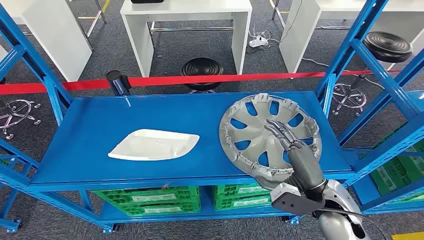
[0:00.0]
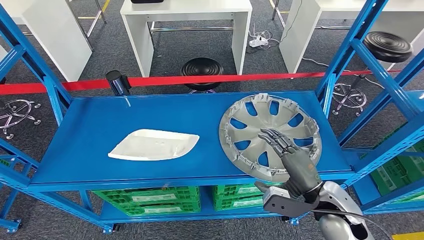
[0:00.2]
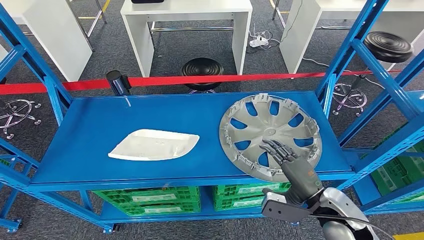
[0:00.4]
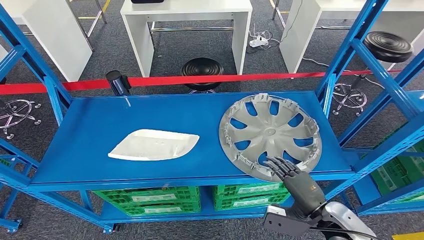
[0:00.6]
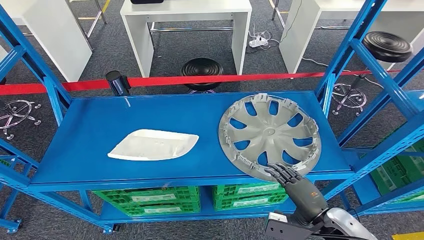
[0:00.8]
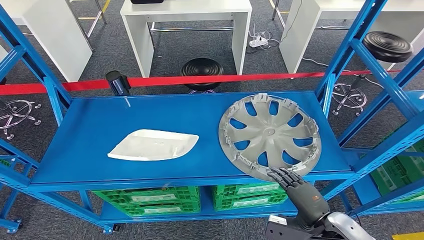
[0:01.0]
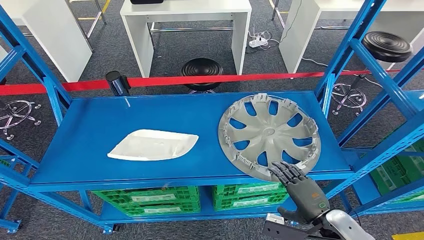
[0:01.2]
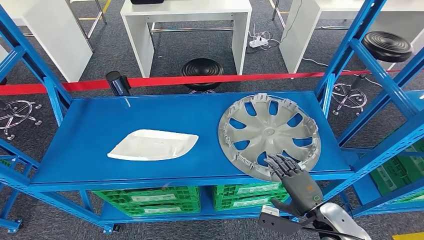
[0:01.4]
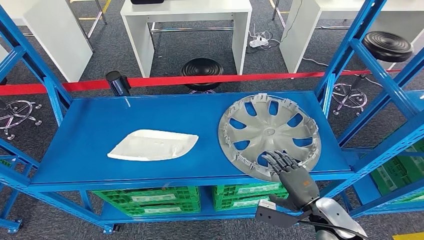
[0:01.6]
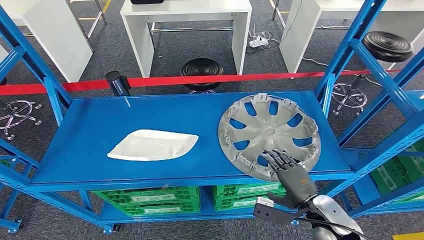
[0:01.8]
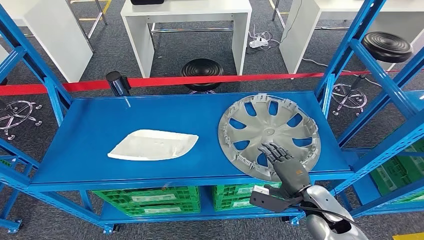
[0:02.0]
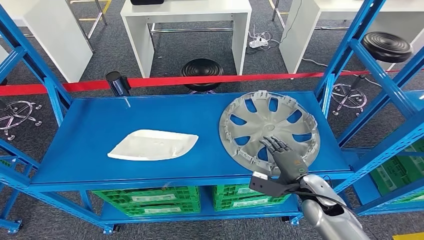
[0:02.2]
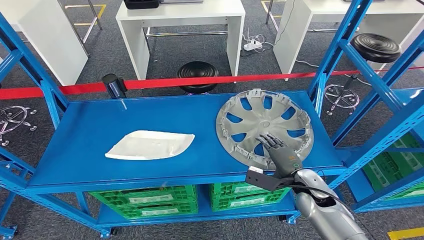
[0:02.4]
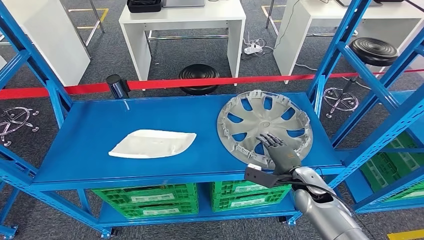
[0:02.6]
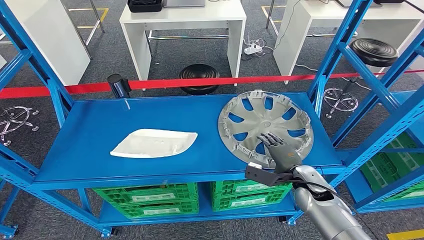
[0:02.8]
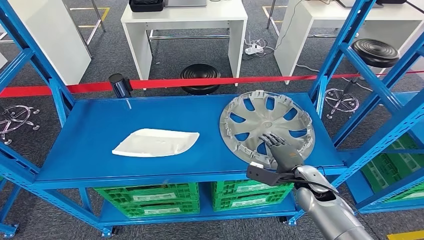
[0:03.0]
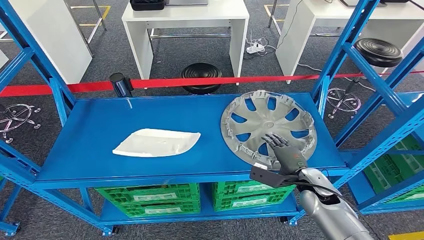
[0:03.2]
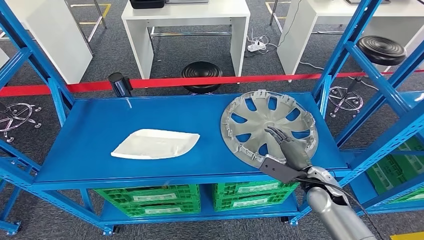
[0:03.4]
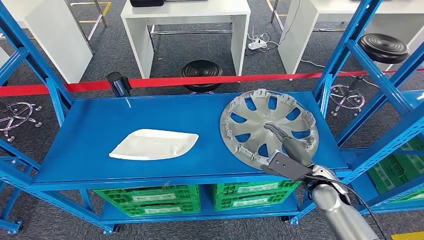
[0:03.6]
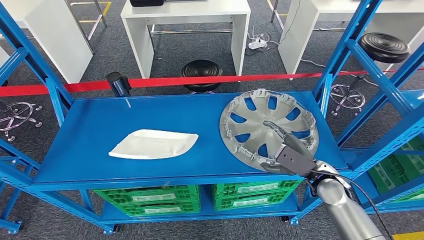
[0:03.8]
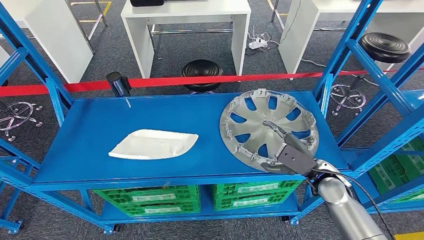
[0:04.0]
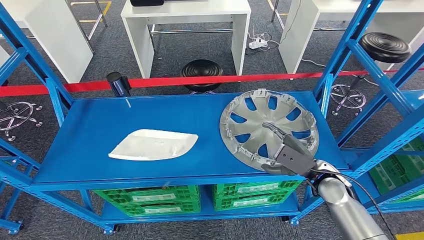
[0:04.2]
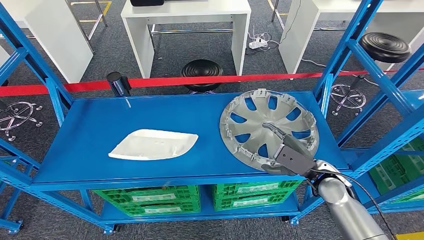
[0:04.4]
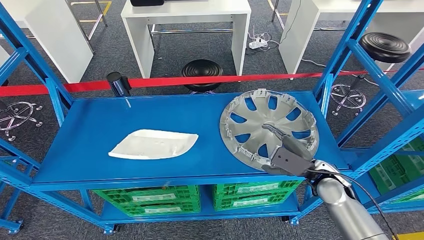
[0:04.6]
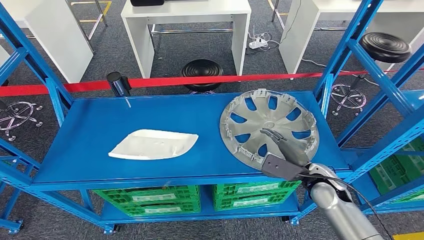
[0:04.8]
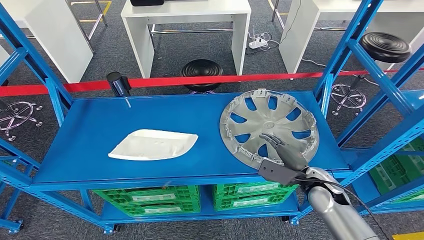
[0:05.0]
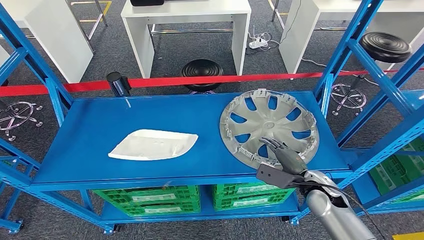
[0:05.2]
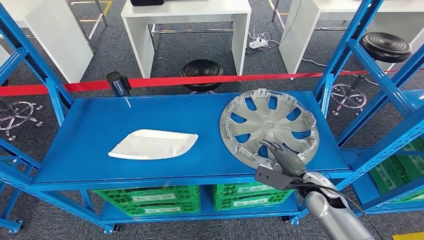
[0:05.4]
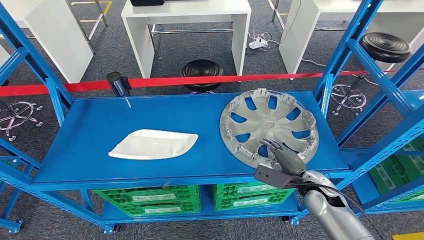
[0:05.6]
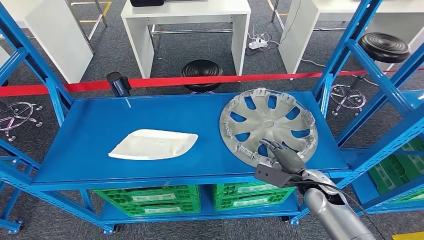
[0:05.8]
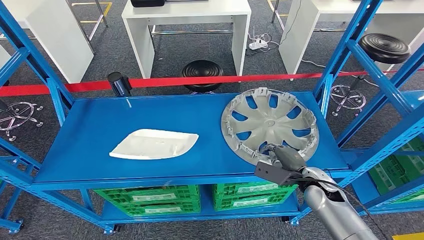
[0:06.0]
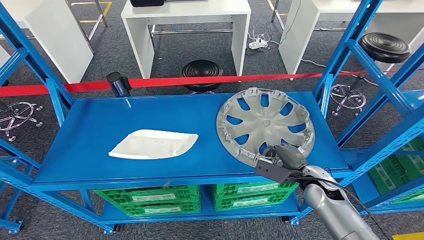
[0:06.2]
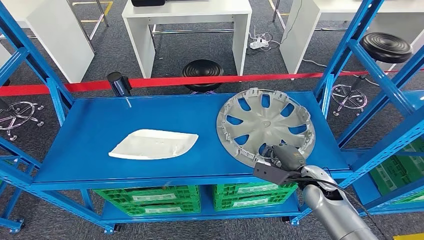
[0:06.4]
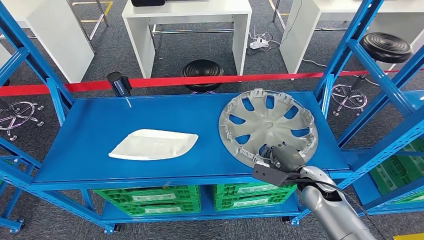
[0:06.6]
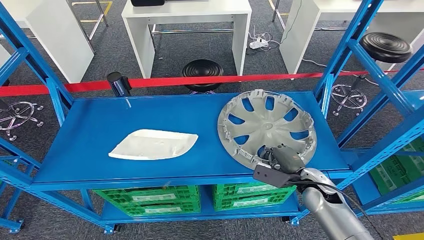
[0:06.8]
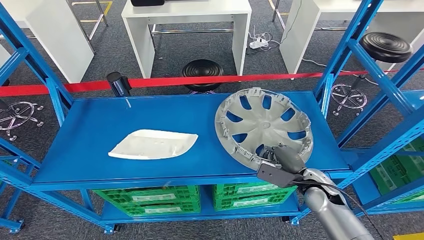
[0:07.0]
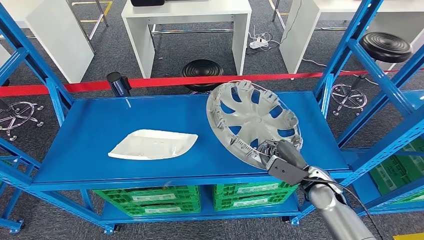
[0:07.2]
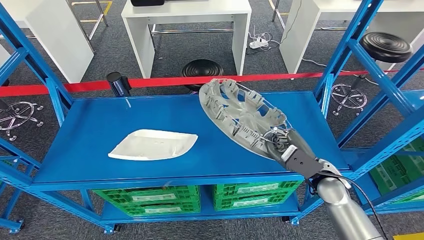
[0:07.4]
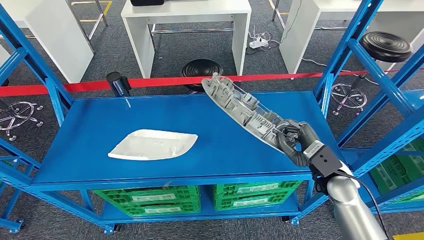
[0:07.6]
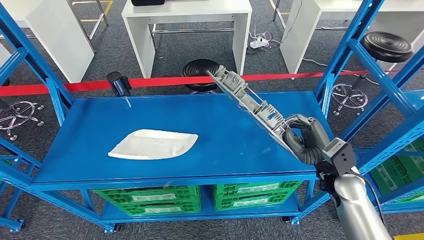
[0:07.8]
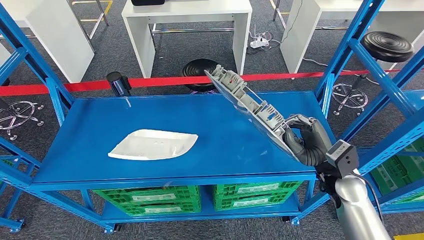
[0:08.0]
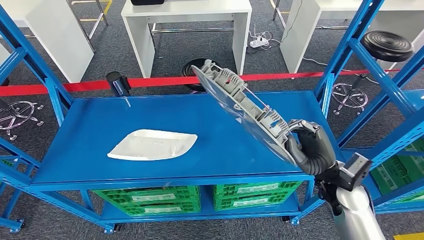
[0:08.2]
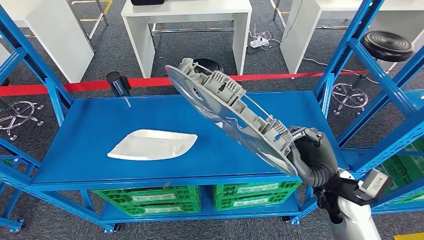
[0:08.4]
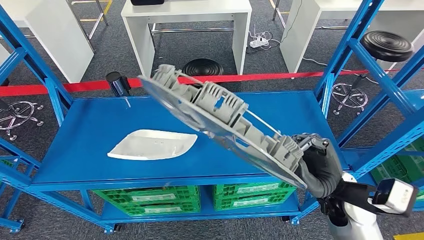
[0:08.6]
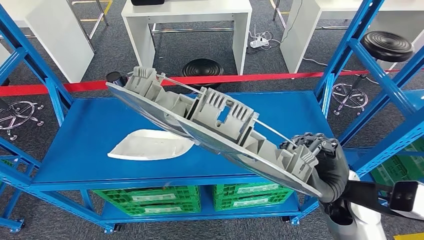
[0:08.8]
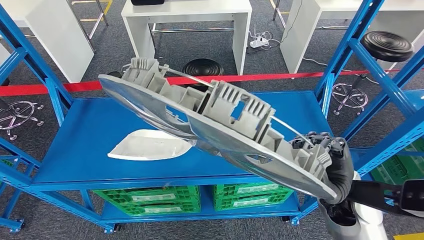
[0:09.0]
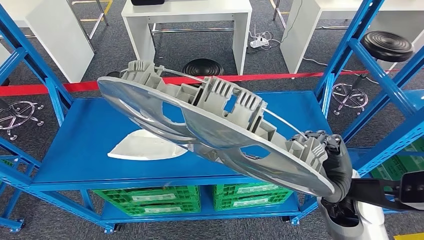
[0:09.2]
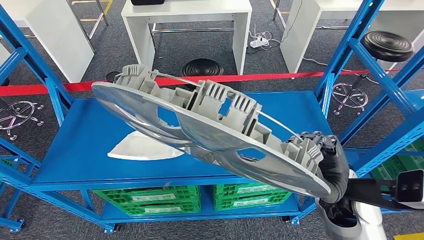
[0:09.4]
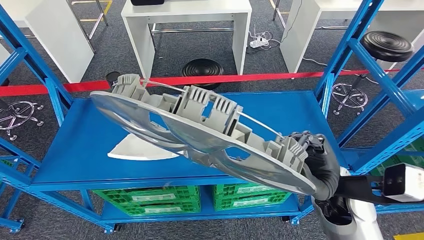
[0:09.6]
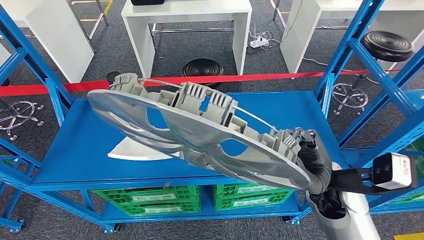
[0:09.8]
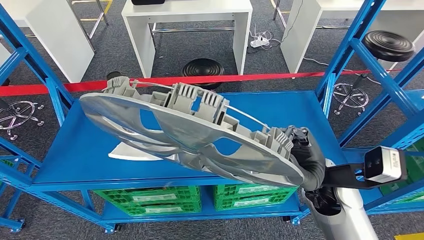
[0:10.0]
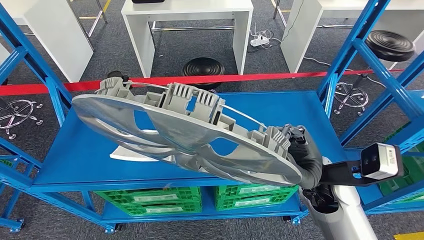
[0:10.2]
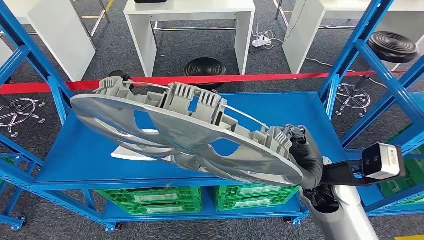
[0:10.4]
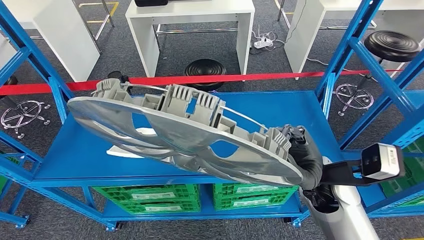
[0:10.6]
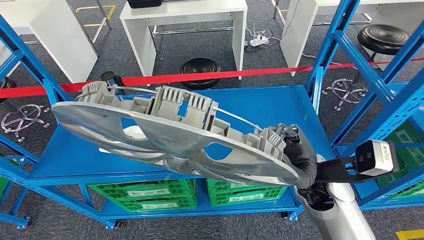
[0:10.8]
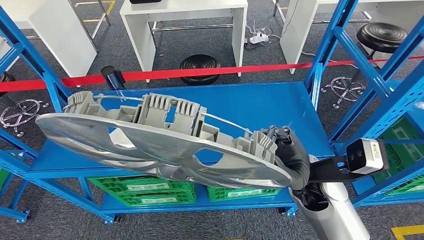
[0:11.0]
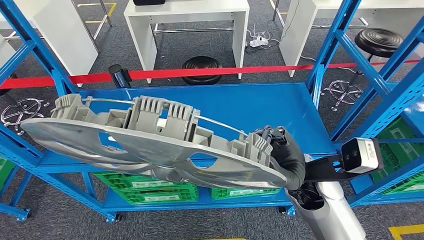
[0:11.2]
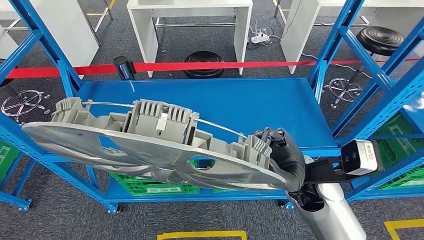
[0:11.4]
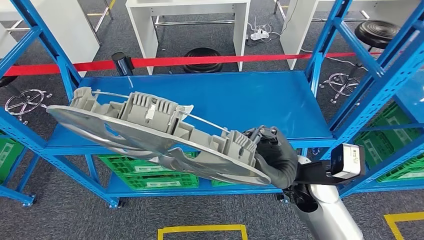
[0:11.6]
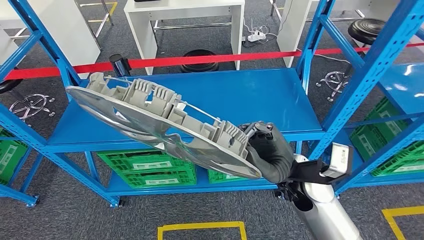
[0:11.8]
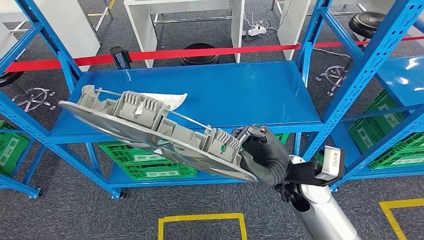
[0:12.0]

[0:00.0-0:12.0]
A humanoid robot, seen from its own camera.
Step, 0:00.0 to 0:09.0: Pick up the small component from the shelf.
0:06.0 to 0:07.6: The right hand shifts approximately 5 cm upward.
0:07.6 to 0:09.0: The right hand moves upward and backward, approximately 10 cm.

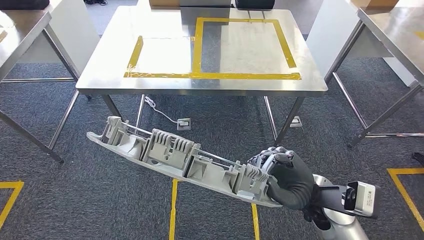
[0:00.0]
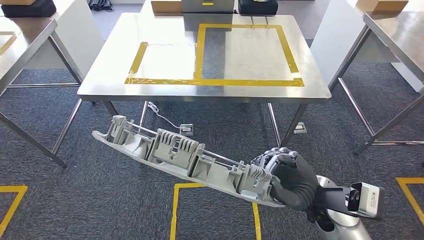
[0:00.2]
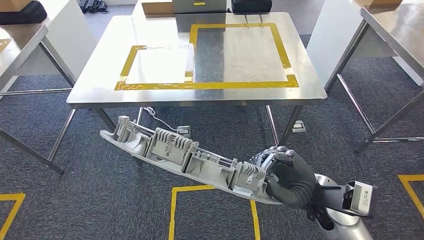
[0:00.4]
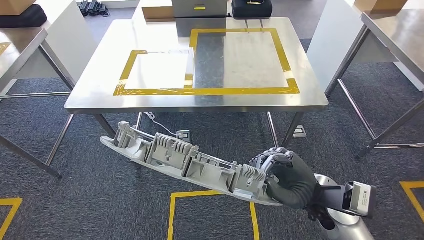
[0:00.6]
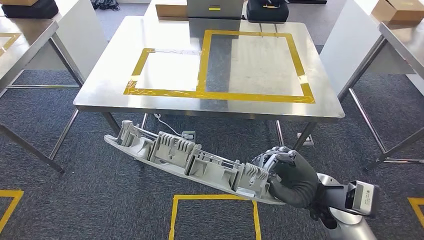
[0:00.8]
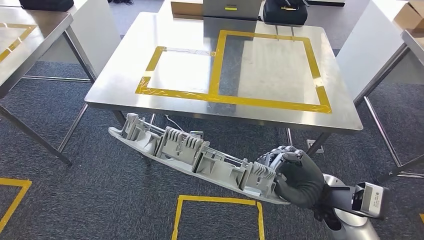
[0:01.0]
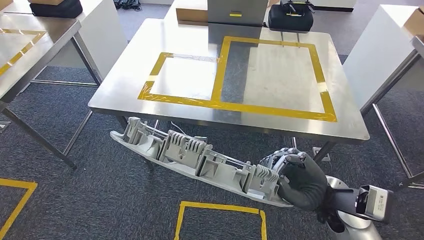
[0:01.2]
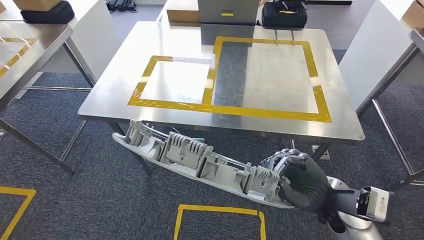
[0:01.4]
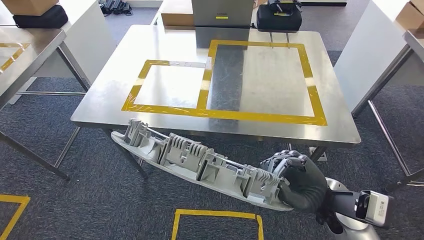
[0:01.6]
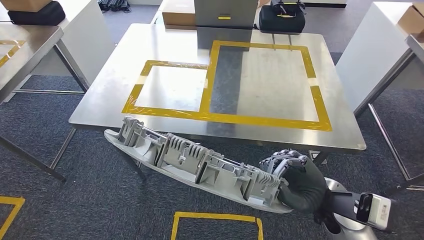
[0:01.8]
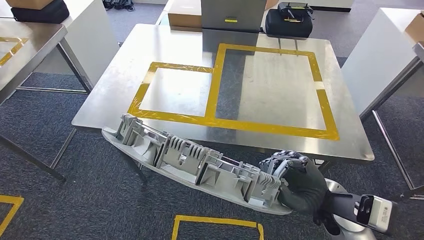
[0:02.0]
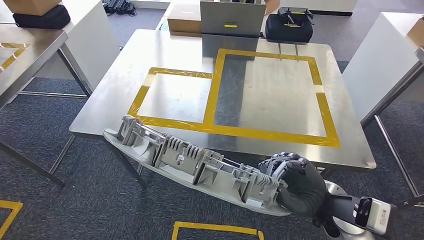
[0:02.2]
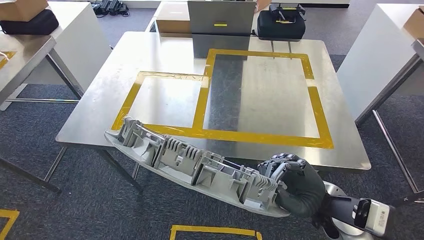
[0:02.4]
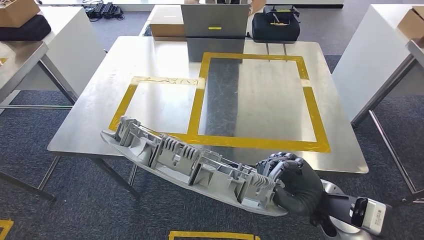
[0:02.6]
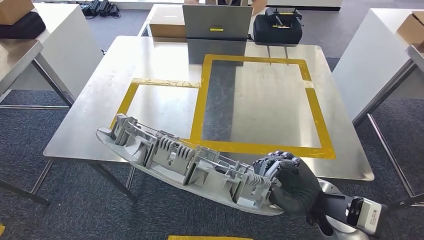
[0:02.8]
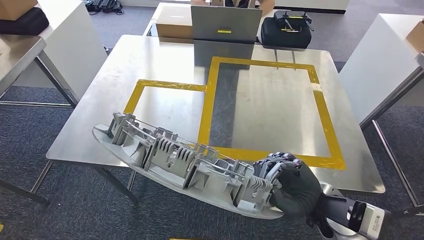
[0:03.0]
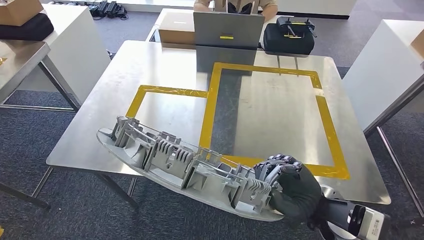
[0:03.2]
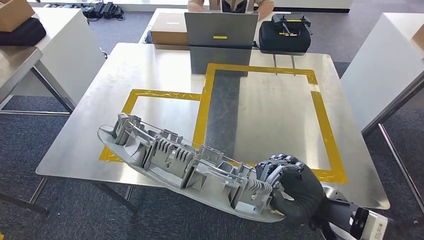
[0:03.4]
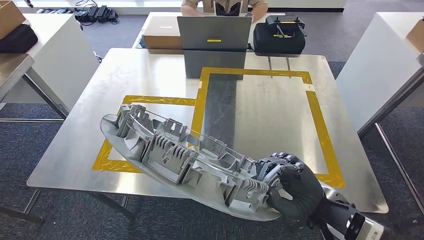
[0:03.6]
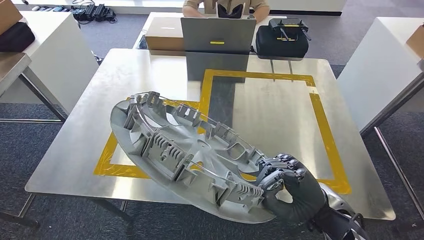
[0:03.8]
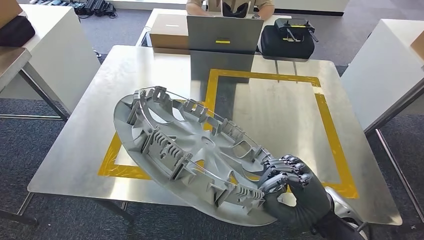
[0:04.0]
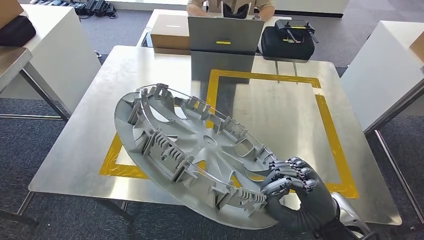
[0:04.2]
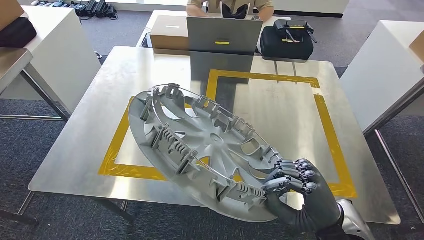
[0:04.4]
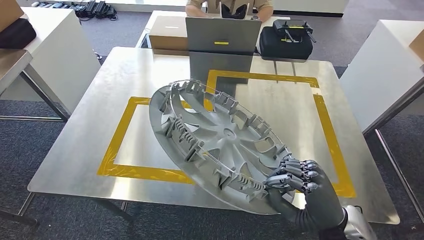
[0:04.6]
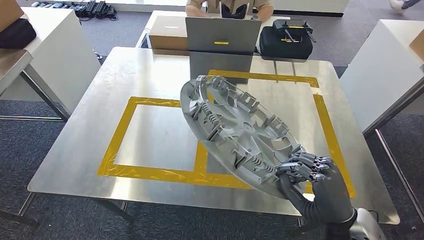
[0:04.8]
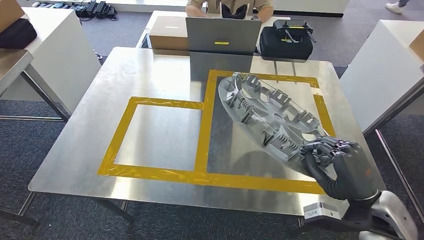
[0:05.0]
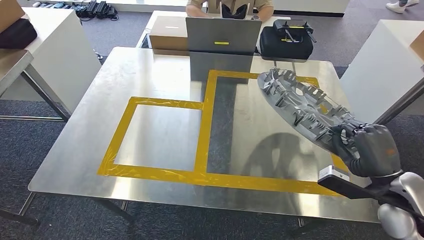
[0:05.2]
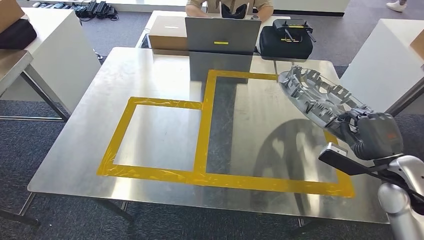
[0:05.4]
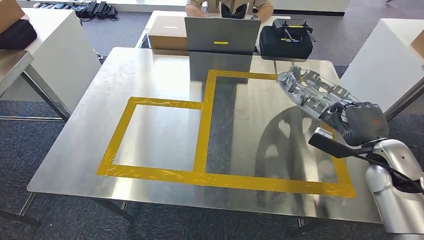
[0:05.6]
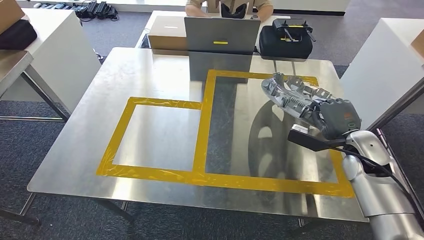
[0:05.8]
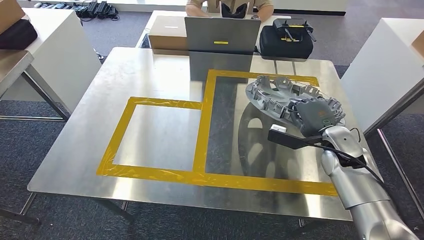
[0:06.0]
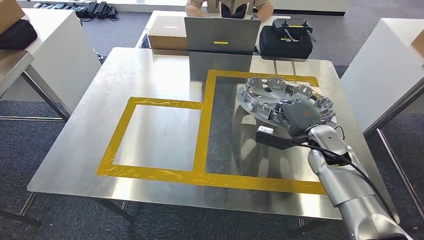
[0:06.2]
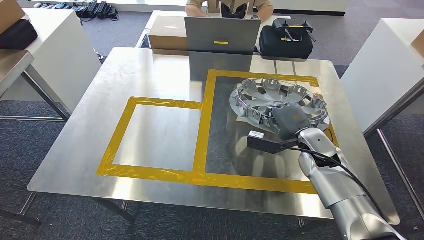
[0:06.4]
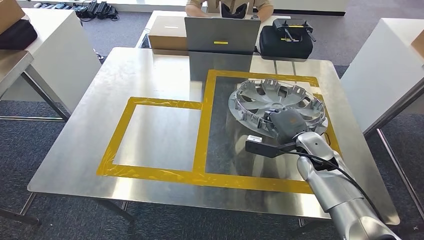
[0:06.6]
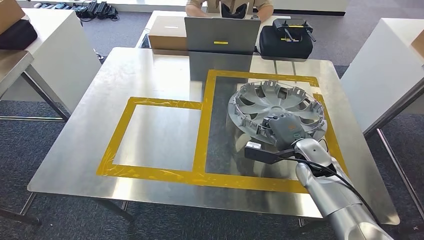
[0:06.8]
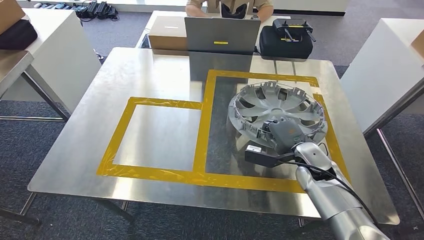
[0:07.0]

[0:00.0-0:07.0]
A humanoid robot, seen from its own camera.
Step, 0:00.0 to 0:02.8: Move the small component to the workbench.
0:05.6 to 0:07.0: The right hand heads to the left and downward, covering approximately 15 cm.
